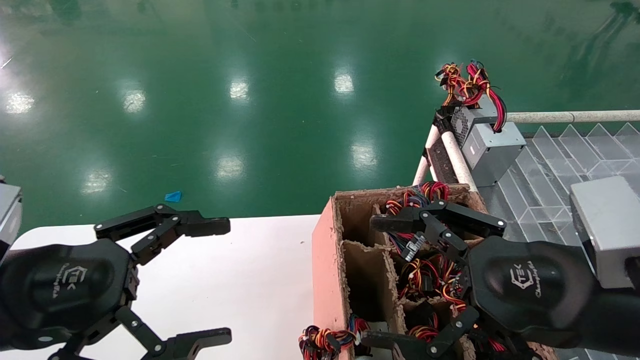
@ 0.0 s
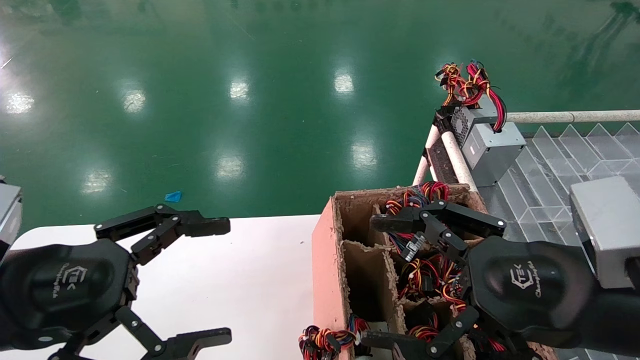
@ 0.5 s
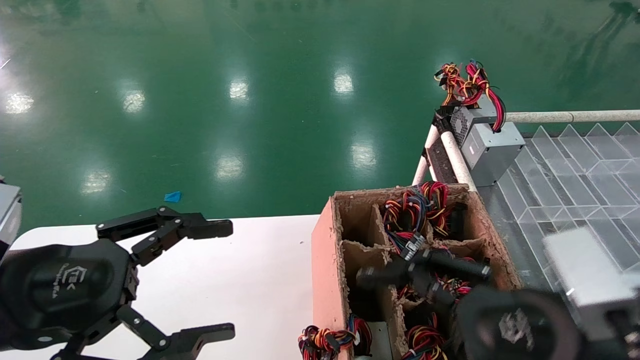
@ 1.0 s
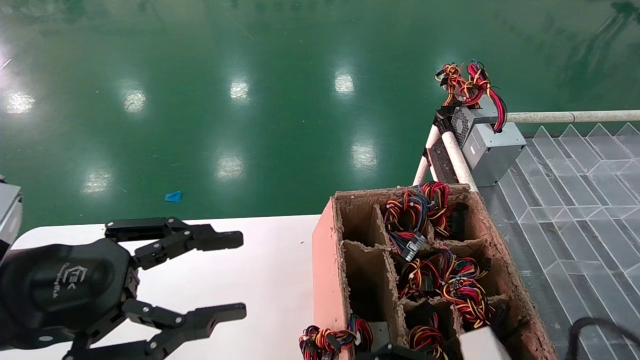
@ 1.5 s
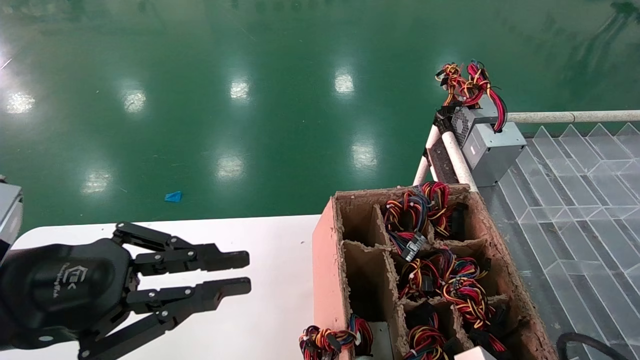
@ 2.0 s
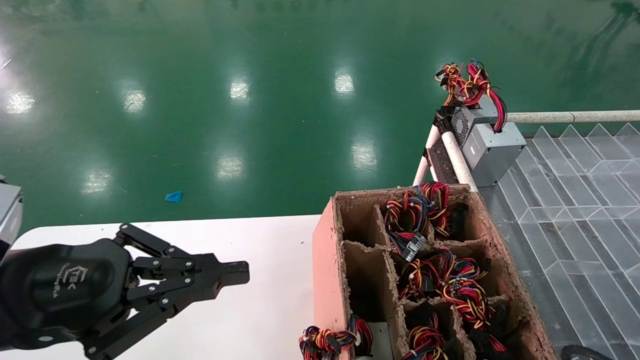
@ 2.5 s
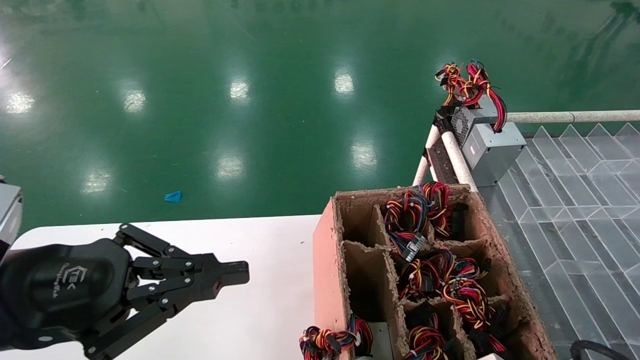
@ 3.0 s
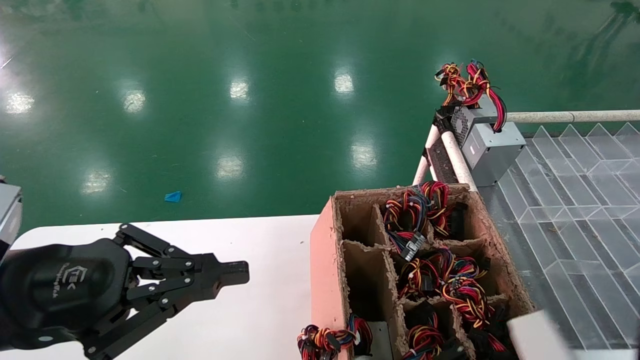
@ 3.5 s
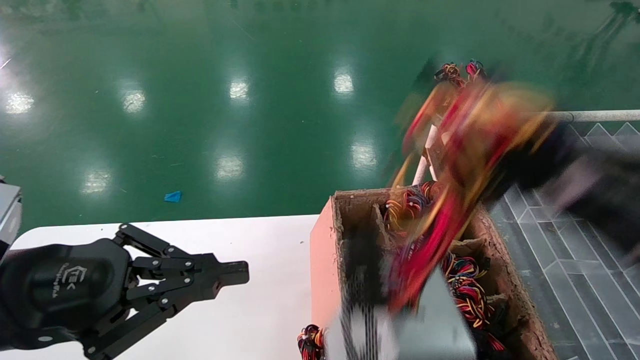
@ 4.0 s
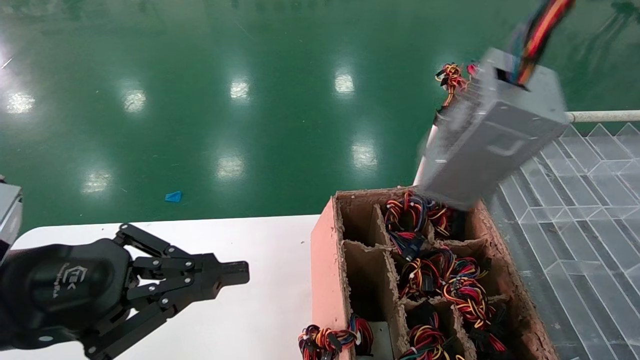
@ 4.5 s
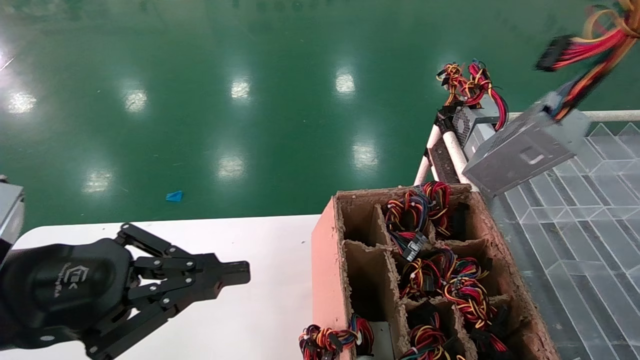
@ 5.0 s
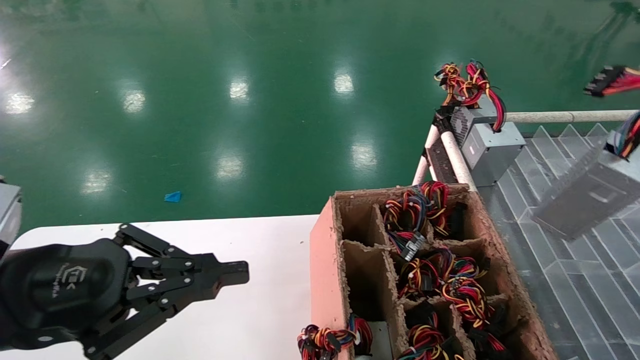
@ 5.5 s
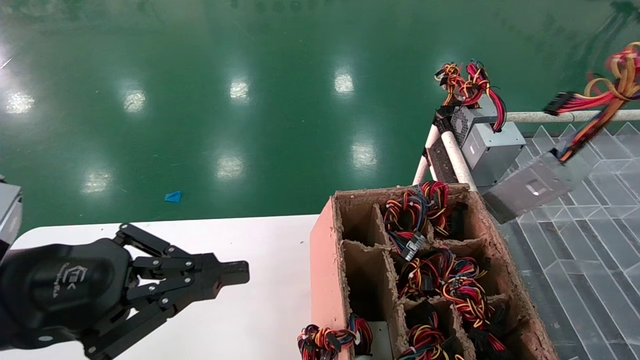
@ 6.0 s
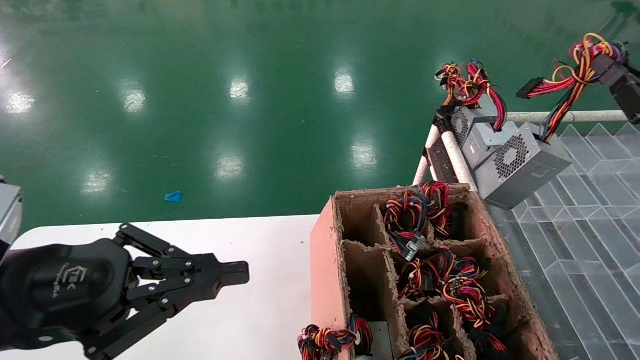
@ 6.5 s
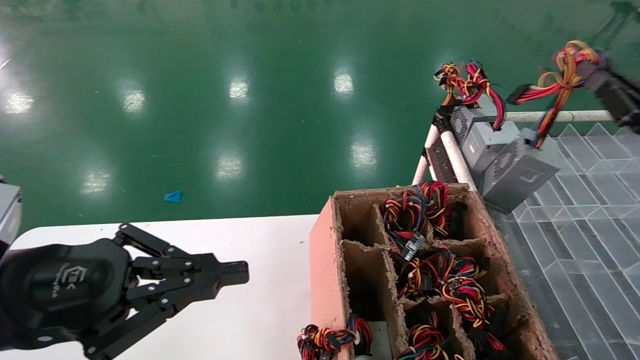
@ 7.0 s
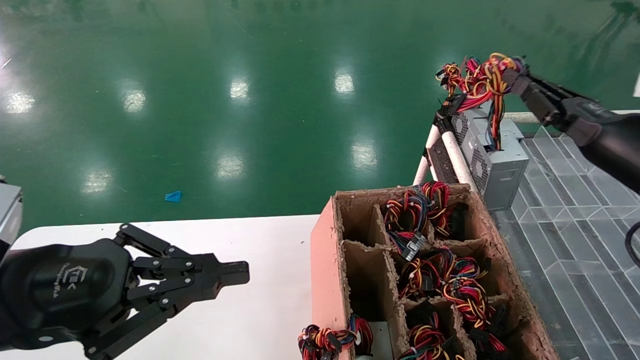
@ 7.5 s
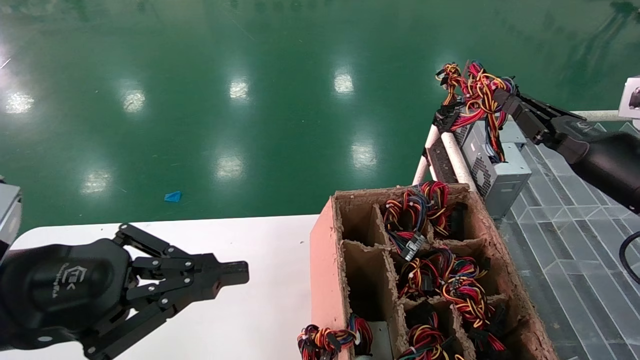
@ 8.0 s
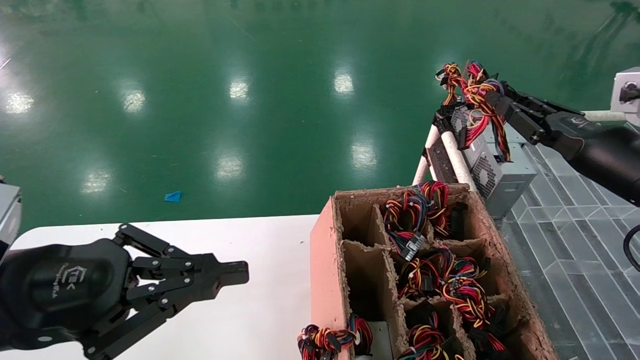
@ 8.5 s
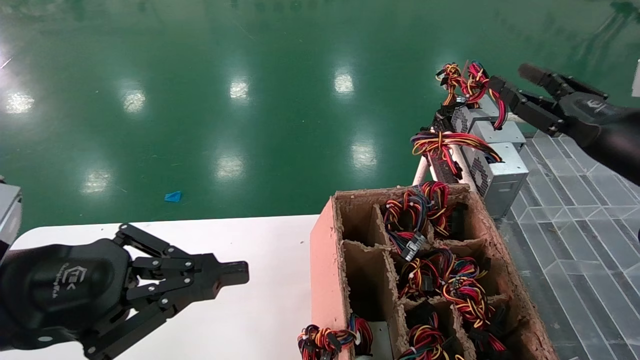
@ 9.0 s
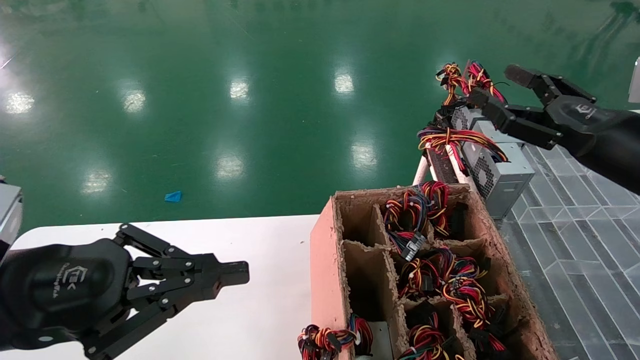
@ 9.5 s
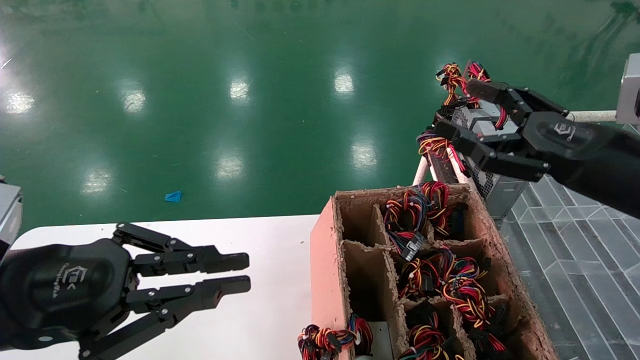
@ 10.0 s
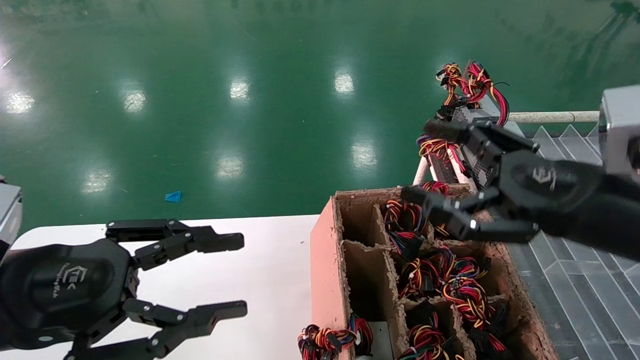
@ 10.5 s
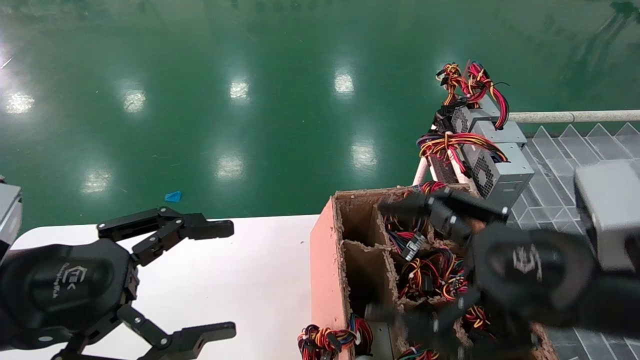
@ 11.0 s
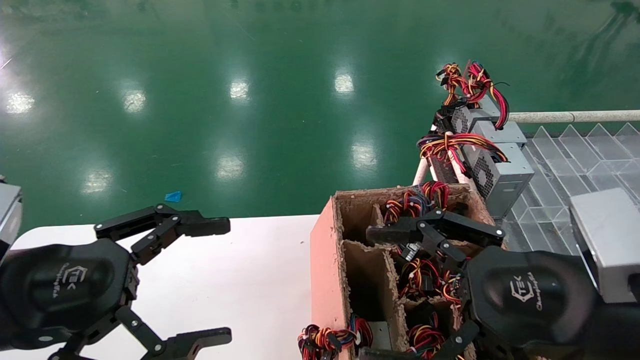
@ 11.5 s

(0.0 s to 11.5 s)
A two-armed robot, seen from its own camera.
Step, 1.5 s - 3.5 s: Grab the main unit power supply from the containment box.
Step, 4.0 s - 8.5 s: Place the main unit power supply in the designated area.
0.0 s - 2.0 s: The right gripper goes roughly 15 cm downward, while the left gripper closes.
2.0 s - 4.0 s: The right gripper moves upward, some 15 cm, and closes up.
4.0 s - 6.0 s: The right gripper heads to the right and forward, covering about 20 cm.
6.0 s - 7.5 s: The right gripper moves forward, about 10 cm.
7.5 s - 9.5 s: The right gripper opens up.
9.5 s - 11.5 s: The right gripper travels backward and to the left by some 20 cm, while the left gripper opens its fingers.

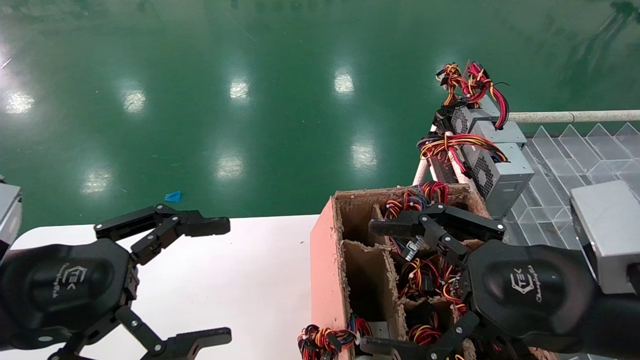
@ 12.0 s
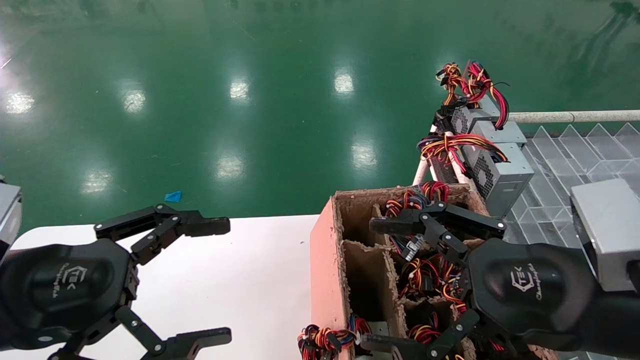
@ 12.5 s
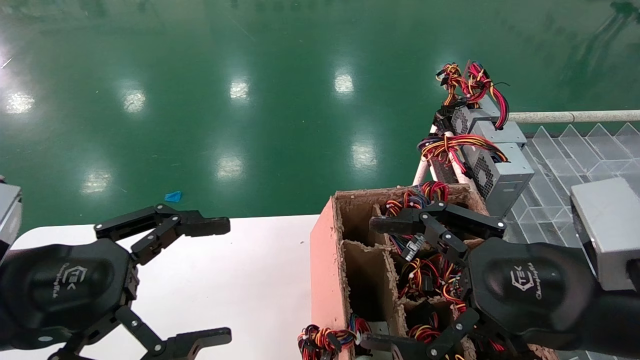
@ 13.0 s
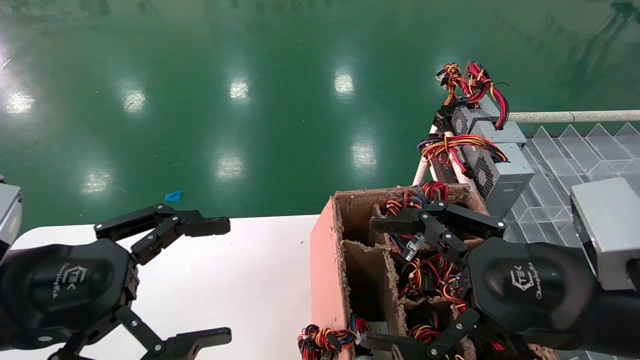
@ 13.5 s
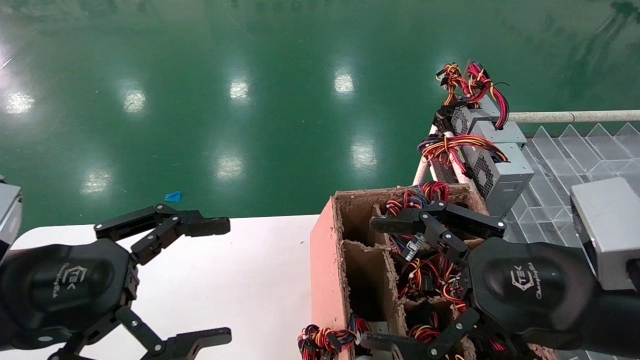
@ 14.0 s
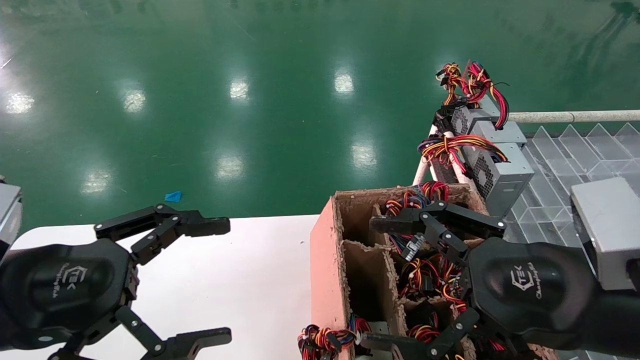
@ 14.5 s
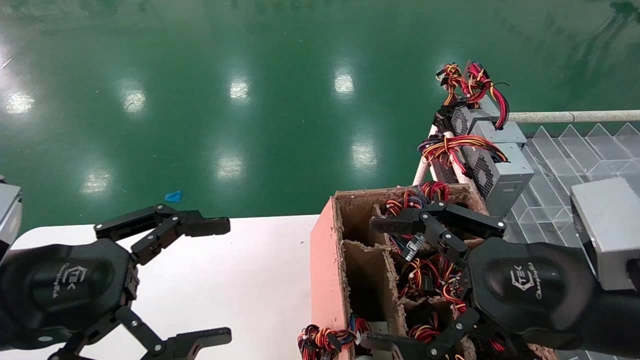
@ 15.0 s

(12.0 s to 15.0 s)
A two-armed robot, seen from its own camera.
12.0 s - 15.0 s: Both grippers stay put.
